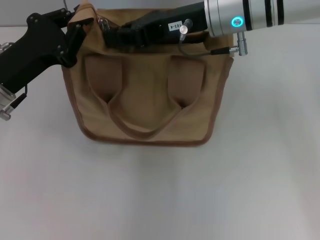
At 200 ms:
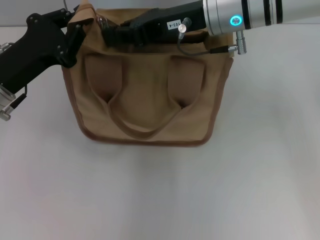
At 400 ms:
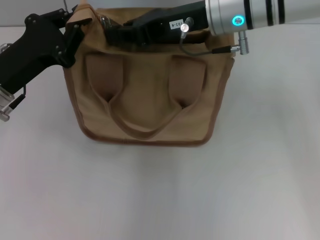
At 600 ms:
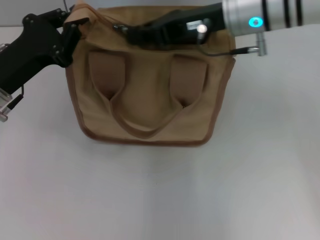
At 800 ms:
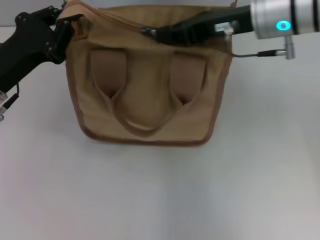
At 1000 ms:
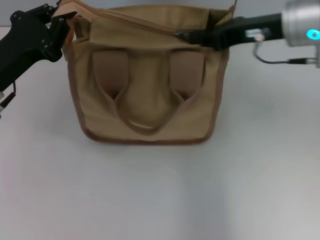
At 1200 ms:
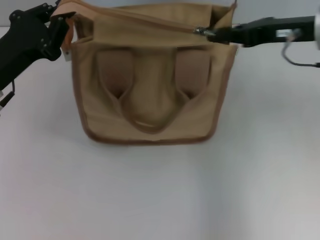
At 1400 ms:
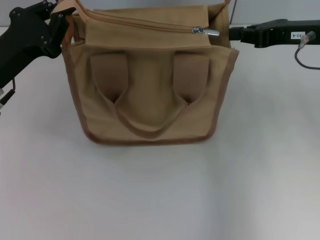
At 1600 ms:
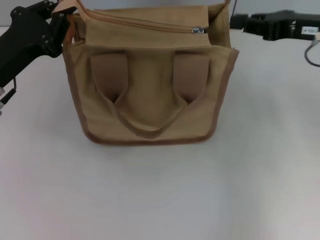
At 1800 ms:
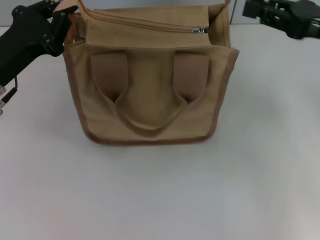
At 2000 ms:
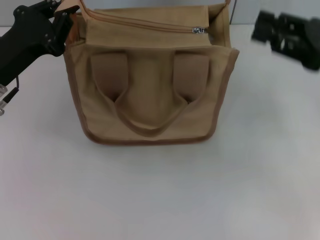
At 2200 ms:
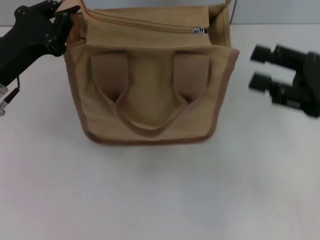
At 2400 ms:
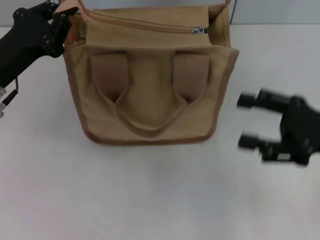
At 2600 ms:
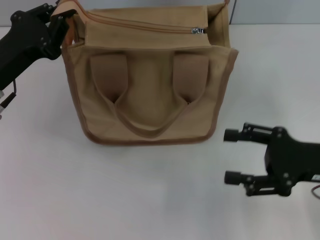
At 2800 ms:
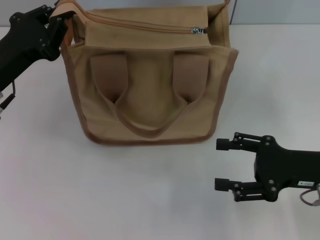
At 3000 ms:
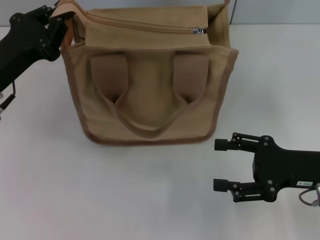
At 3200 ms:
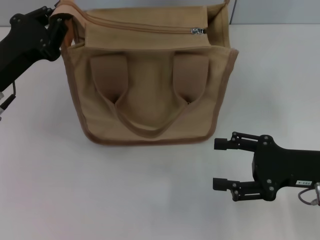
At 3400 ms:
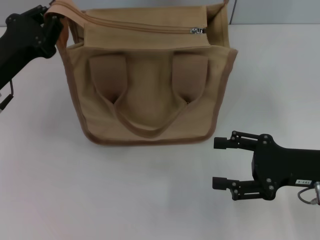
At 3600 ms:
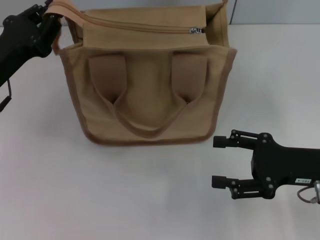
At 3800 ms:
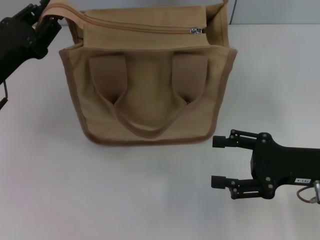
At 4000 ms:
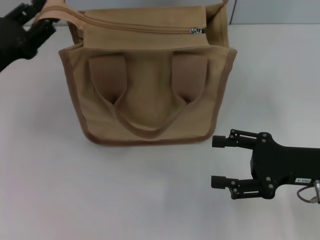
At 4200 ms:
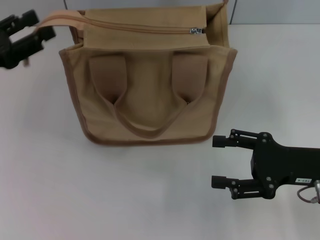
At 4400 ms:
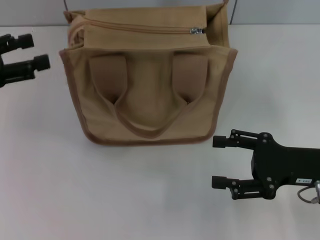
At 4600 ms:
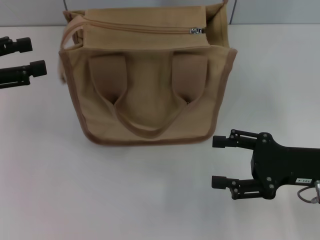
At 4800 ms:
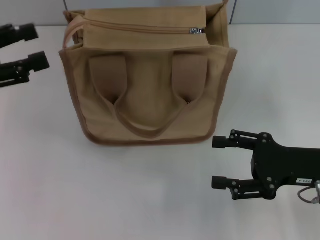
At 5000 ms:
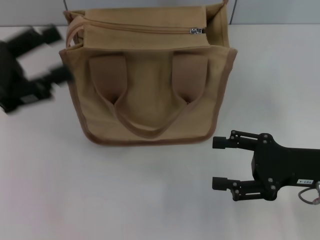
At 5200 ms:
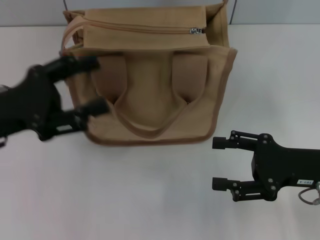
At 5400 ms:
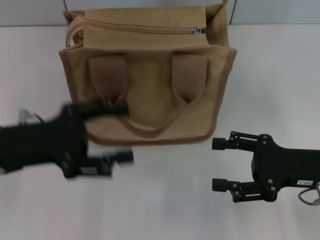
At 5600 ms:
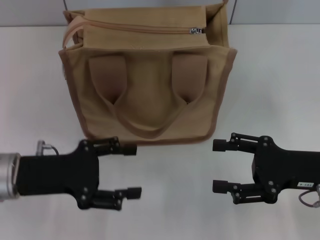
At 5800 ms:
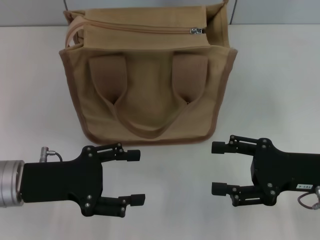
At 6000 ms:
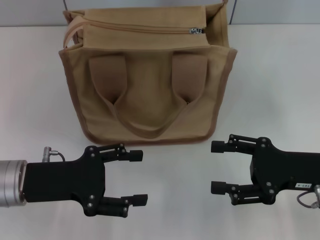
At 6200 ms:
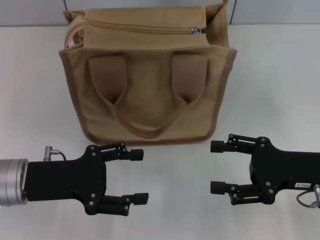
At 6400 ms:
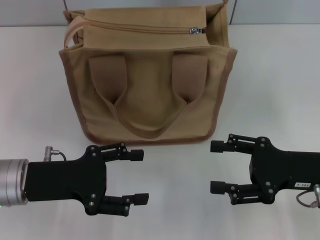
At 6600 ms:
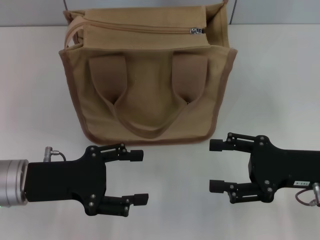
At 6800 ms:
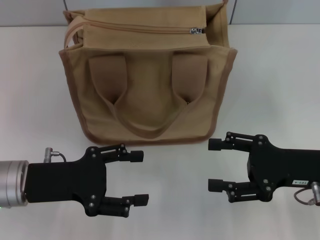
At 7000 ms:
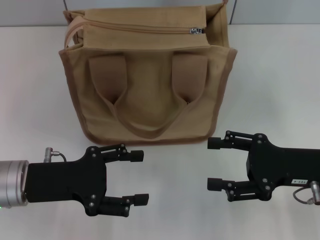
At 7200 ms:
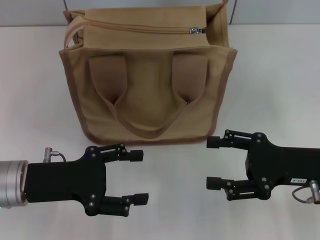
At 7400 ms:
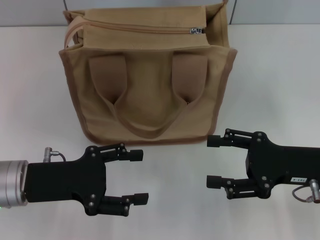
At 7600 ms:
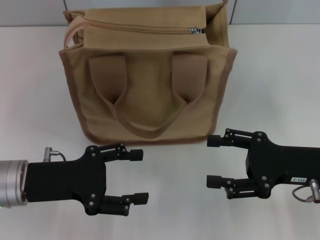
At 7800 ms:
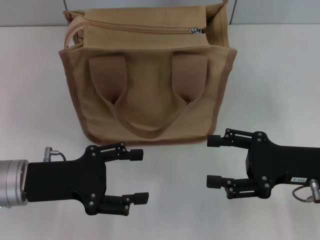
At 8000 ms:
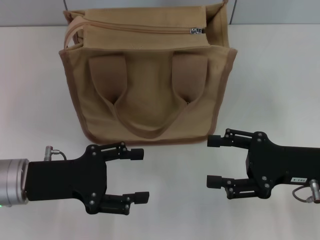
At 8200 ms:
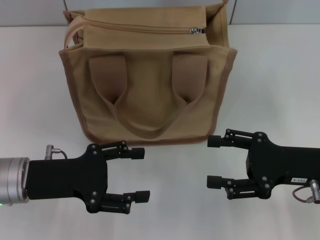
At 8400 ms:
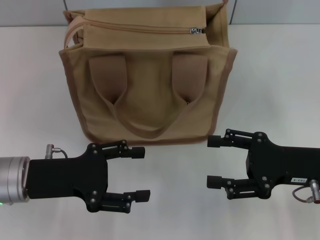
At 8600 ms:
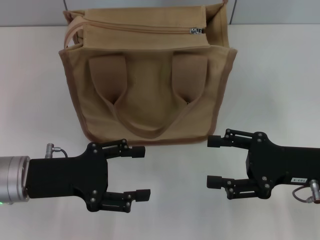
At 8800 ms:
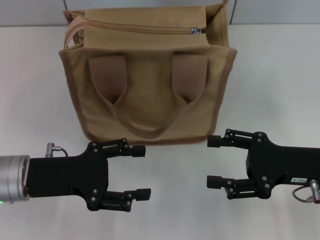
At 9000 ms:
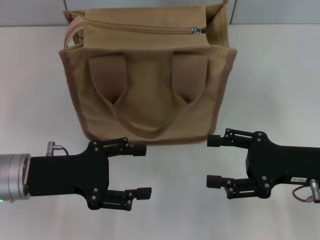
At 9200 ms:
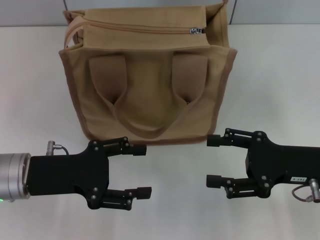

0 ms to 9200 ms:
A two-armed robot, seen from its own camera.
Step, 1600 ms to 4600 ms: Grab the zipper with your left hand.
0 ms to 1600 ms: The right gripper travels to the right by approximately 15 cm.
1600 ms to 3000 ms: The right gripper moves downward and backward, roughly 15 cm, and opens its fingers.
3000 ms to 4600 ms: The left gripper moves to the left and upward, about 10 cm, and opens its fingers.
4600 ms to 6200 ms: The left gripper heads to the right, downward and backward, covering about 15 cm.
6200 ms to 9200 ms: The two grippers keep their place.
